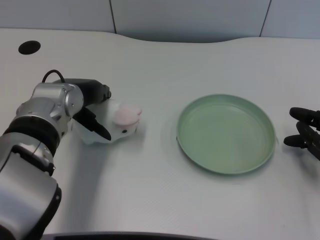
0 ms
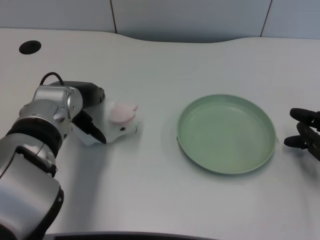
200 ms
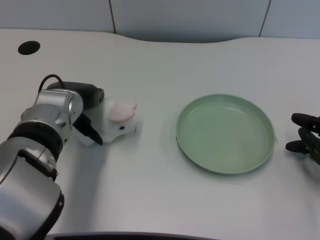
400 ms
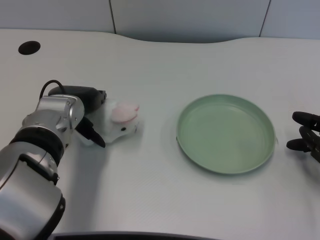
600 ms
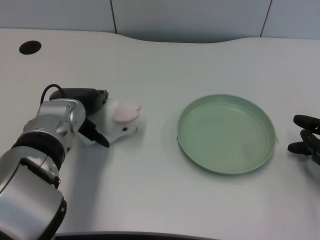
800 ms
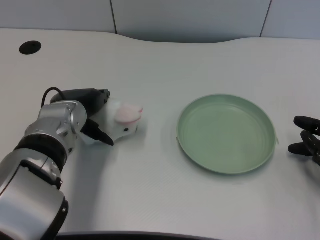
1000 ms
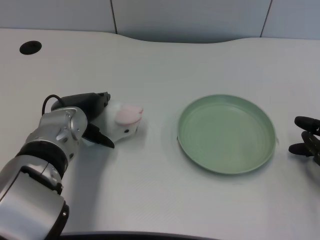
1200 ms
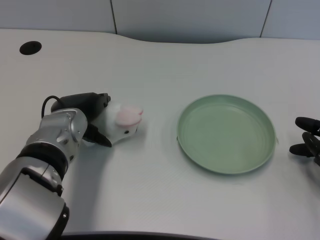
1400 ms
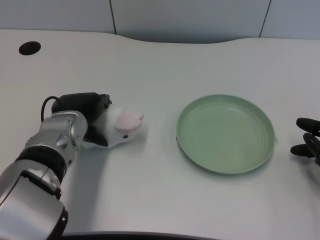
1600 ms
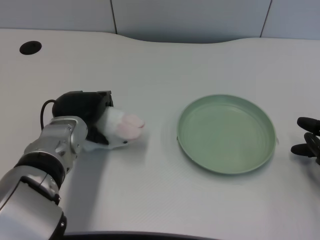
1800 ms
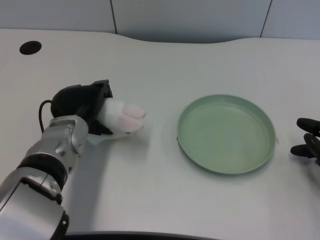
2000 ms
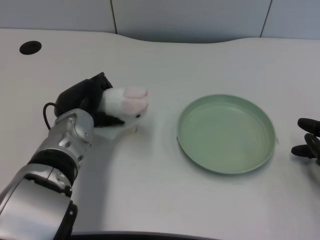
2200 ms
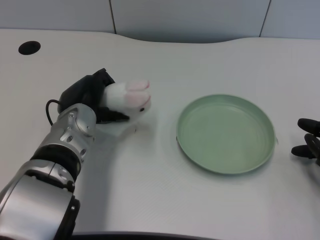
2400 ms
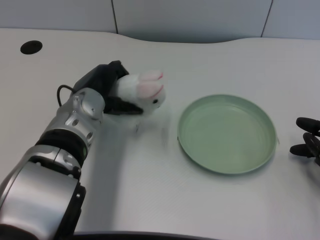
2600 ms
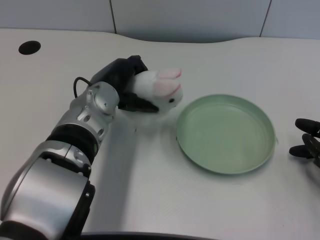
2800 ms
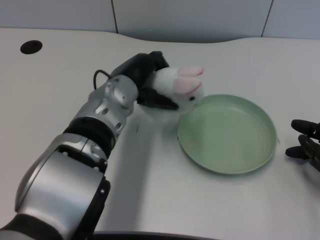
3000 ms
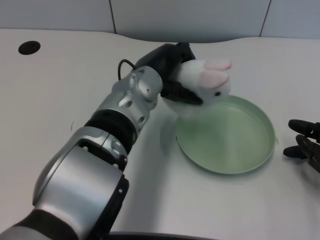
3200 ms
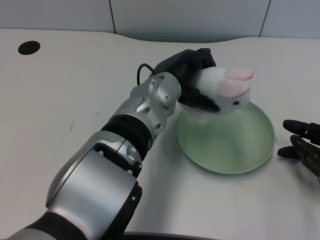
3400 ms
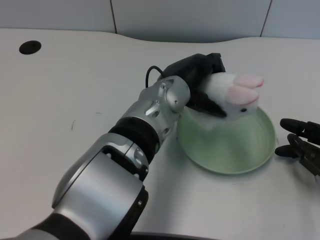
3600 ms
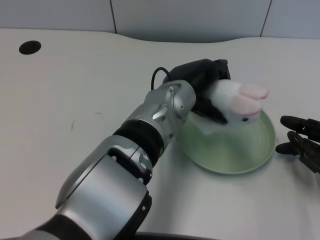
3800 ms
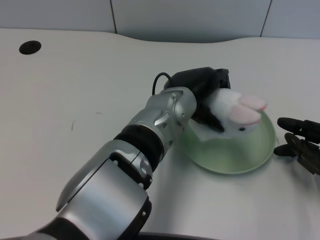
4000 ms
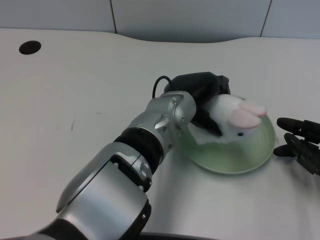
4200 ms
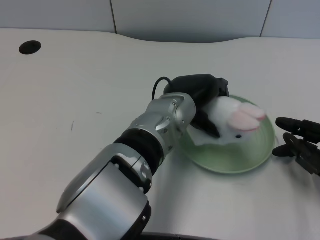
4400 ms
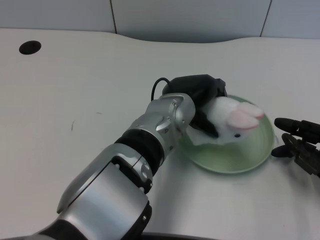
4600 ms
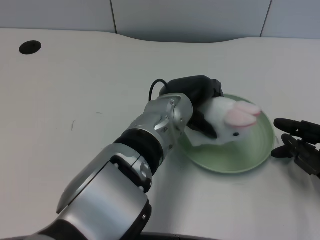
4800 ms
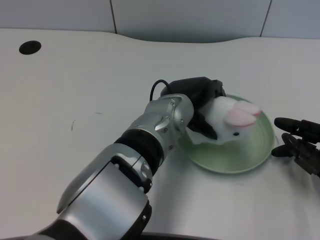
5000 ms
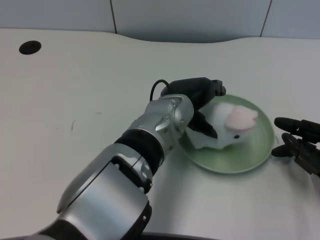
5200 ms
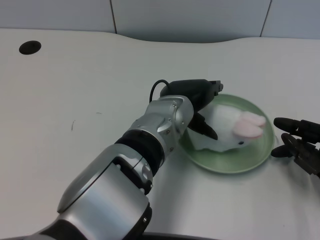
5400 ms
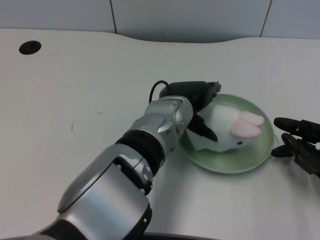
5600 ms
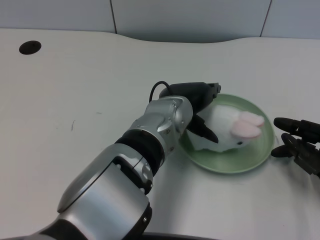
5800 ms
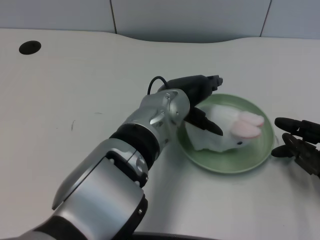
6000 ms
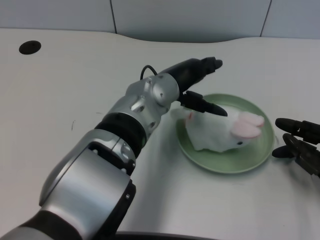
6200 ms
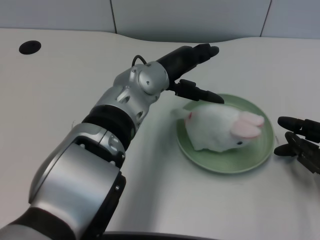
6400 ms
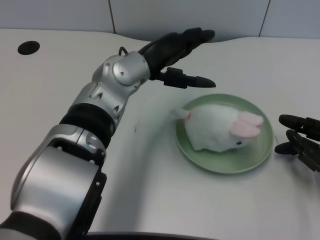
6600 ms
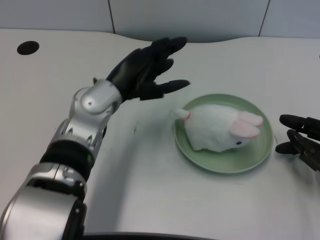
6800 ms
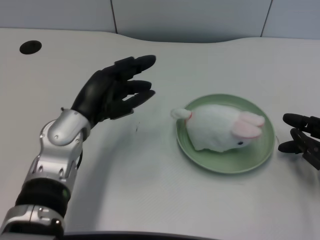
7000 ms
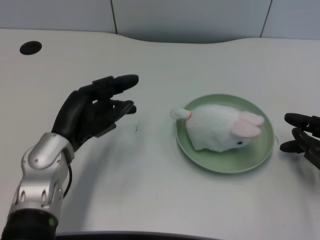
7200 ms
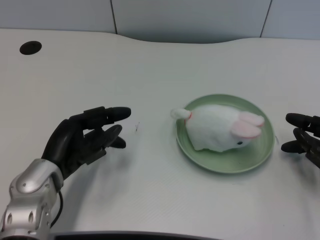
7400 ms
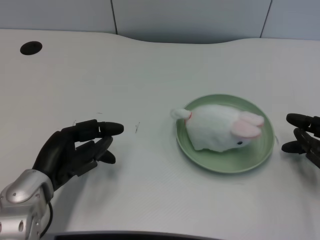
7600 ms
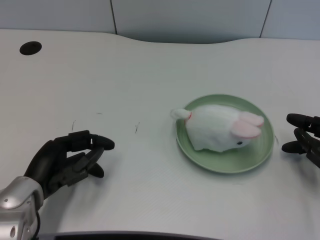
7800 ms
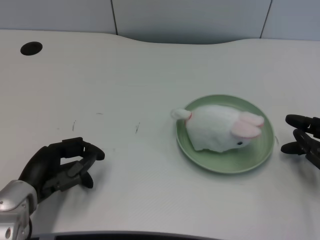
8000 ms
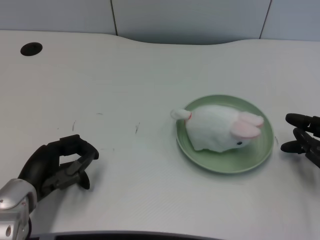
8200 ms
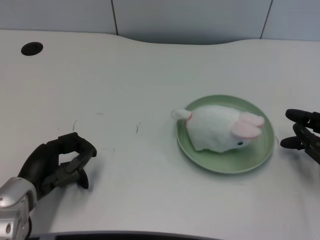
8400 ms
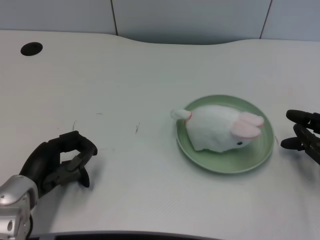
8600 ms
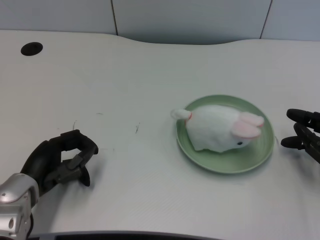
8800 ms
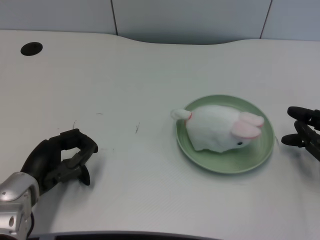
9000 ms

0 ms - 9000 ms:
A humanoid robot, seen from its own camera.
Task of the whole recording: pick up the rabbit doll from the table and place it on the plate.
Step, 0 ms - 2000 ms: Grasp the rabbit doll with the left gripper.
Step, 2200 ms - 5600 ms: Place the rabbit doll into the plate with the left gripper.
0 ms - 1600 ms: The left hand ends up about 5 cm from where it was.
1600 ms - 3000 ms: The left hand is displaced to the right by roughly 10 cm.
3000 ms - 4400 ms: The left hand heads to the right, covering approximately 10 cm.
4400 ms - 6000 ms: There are only small adjustments of the hands.
6000 ms - 7600 ms: The left hand shifts roughly 20 cm to the left and downward.
7600 ms - 9000 ms: There are only small adjustments of the hands.
